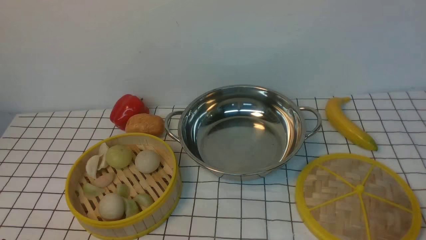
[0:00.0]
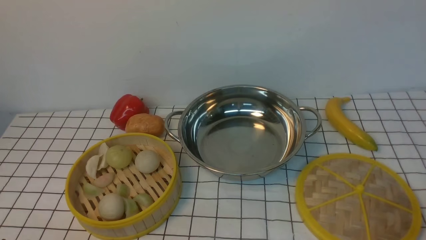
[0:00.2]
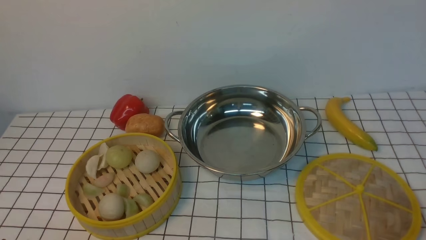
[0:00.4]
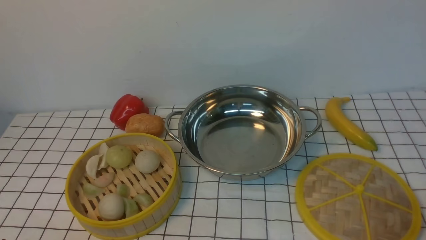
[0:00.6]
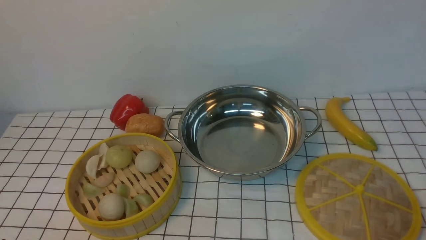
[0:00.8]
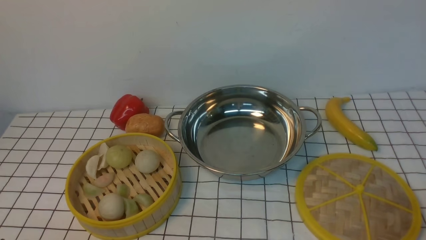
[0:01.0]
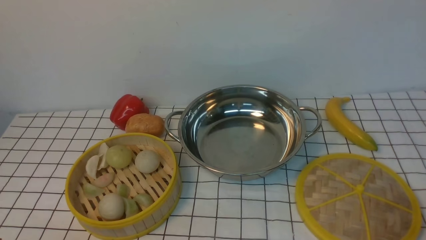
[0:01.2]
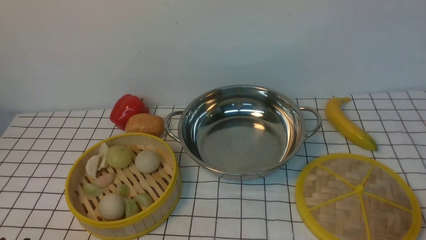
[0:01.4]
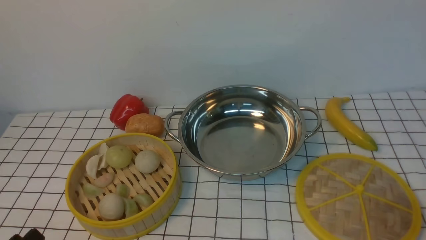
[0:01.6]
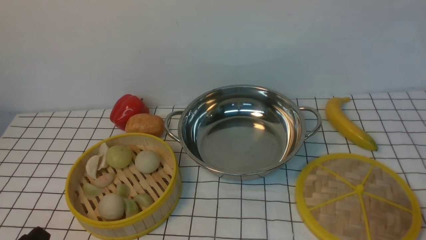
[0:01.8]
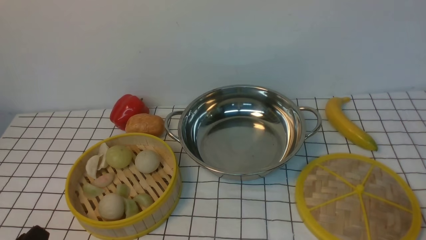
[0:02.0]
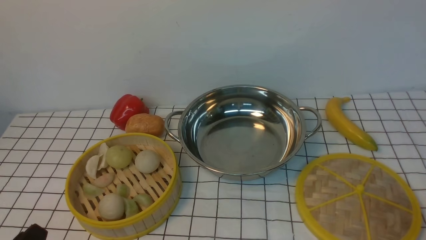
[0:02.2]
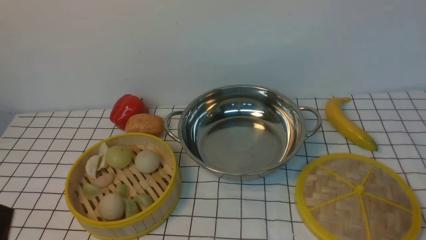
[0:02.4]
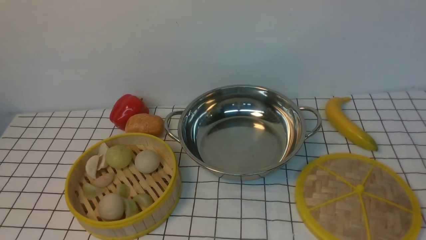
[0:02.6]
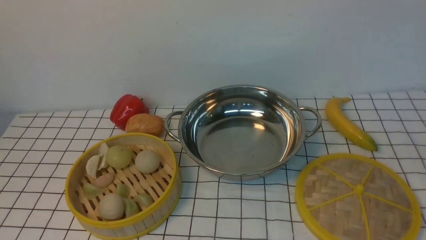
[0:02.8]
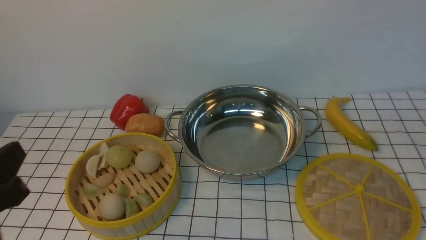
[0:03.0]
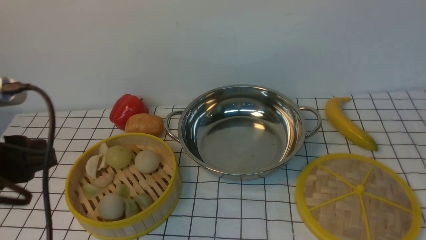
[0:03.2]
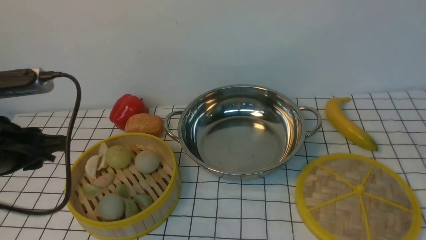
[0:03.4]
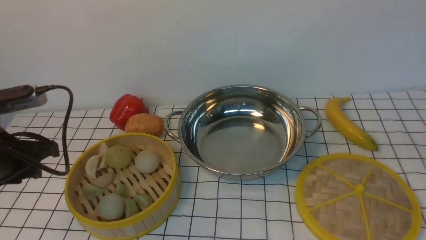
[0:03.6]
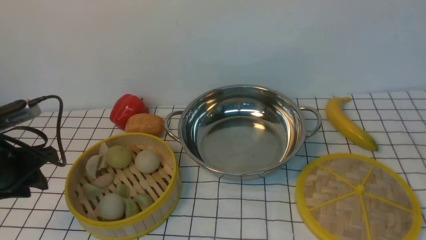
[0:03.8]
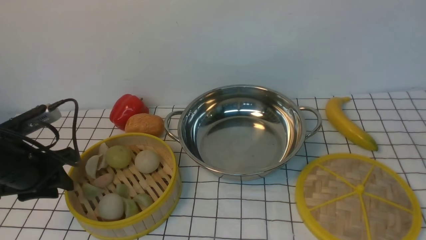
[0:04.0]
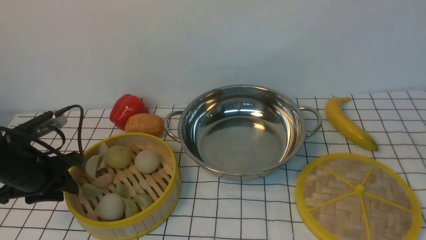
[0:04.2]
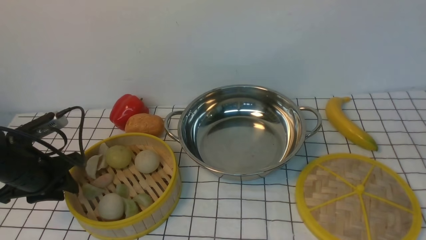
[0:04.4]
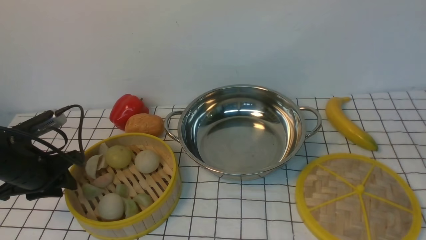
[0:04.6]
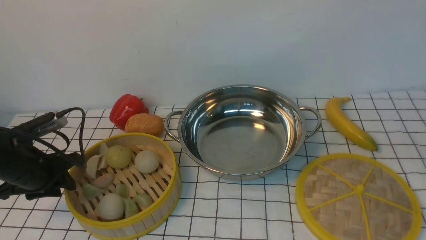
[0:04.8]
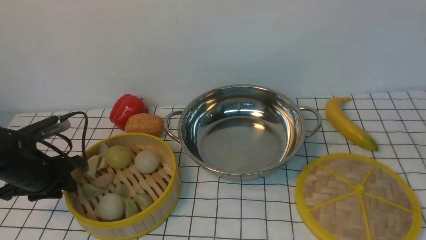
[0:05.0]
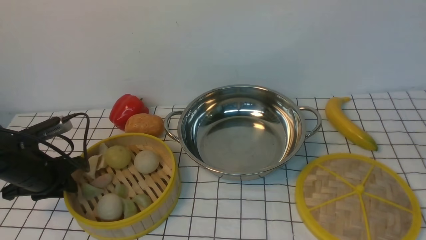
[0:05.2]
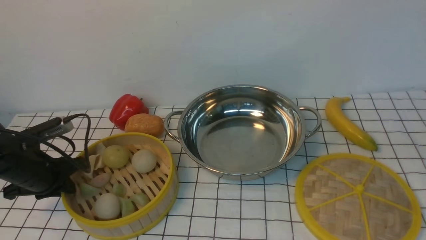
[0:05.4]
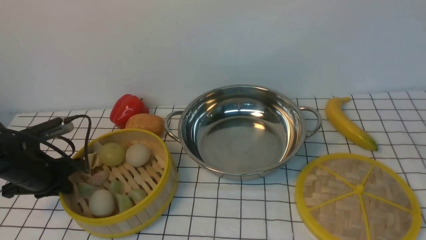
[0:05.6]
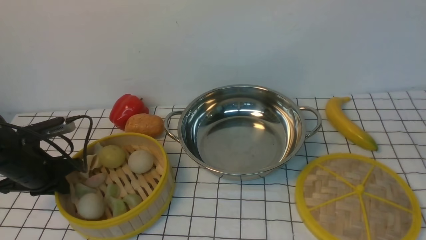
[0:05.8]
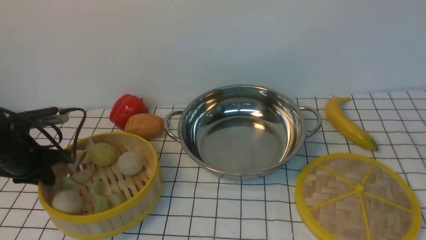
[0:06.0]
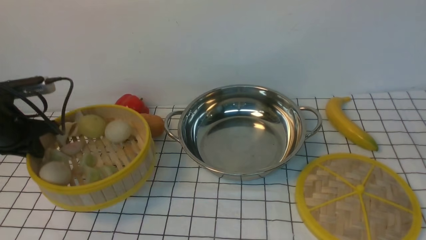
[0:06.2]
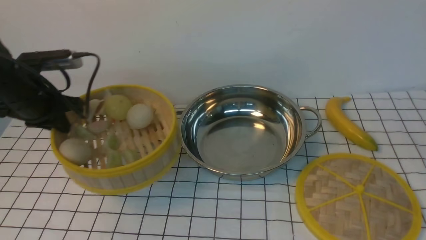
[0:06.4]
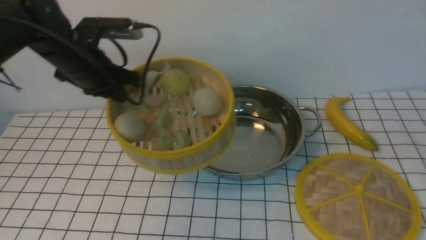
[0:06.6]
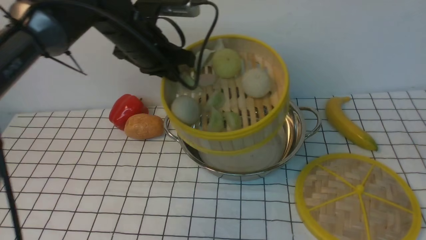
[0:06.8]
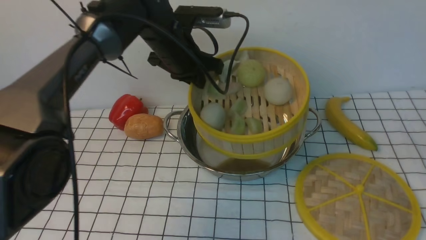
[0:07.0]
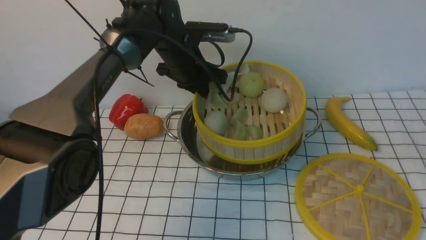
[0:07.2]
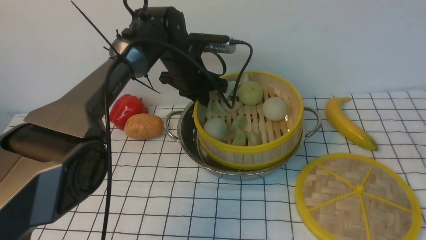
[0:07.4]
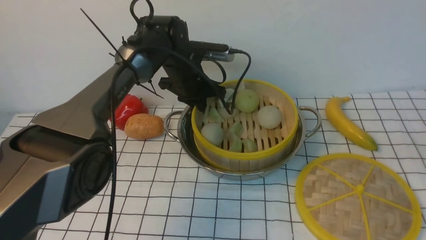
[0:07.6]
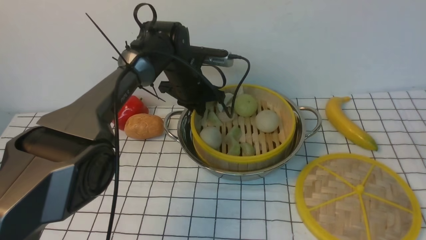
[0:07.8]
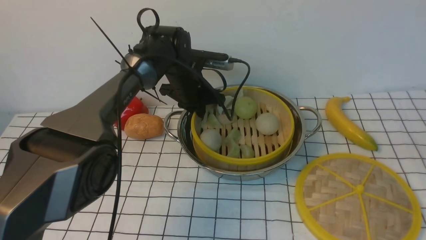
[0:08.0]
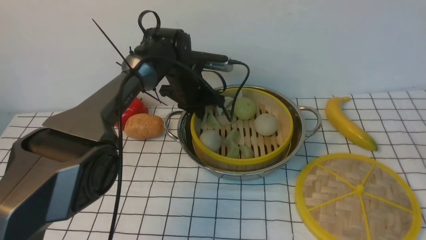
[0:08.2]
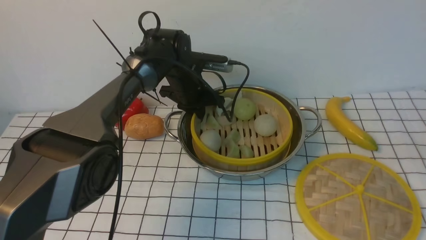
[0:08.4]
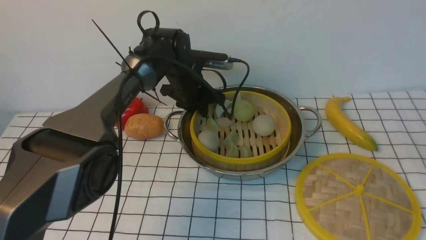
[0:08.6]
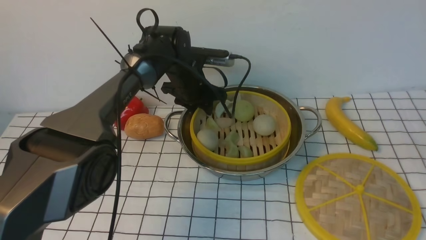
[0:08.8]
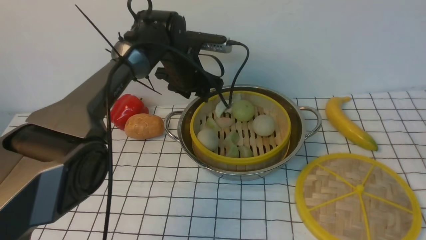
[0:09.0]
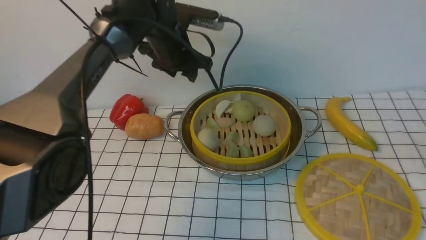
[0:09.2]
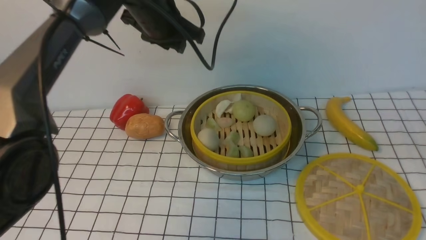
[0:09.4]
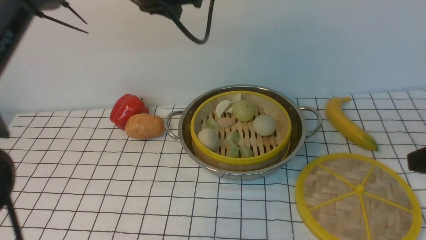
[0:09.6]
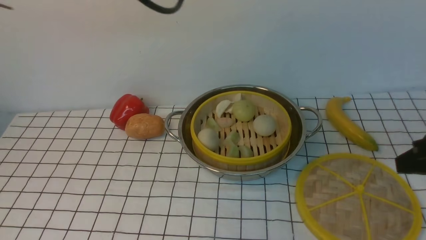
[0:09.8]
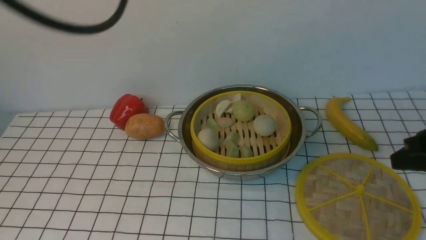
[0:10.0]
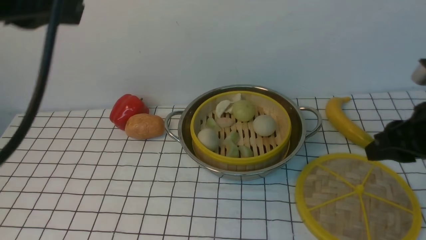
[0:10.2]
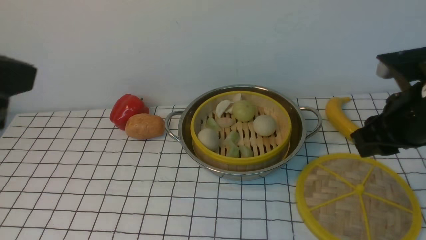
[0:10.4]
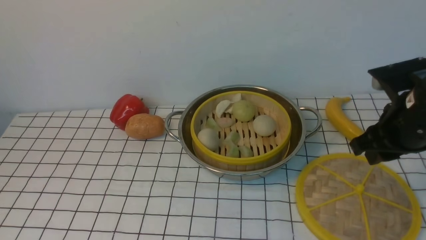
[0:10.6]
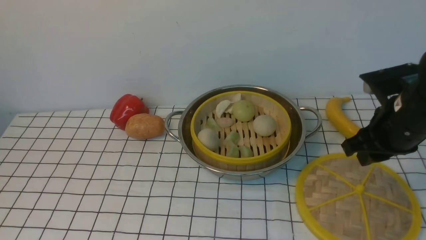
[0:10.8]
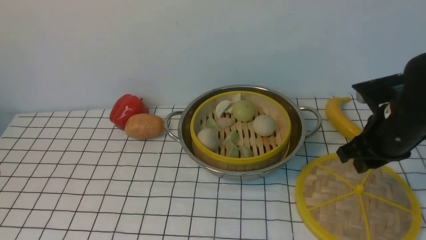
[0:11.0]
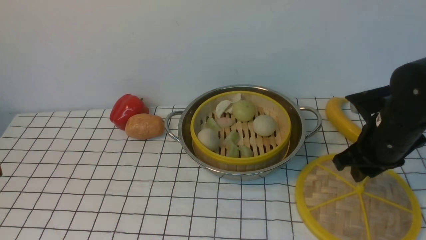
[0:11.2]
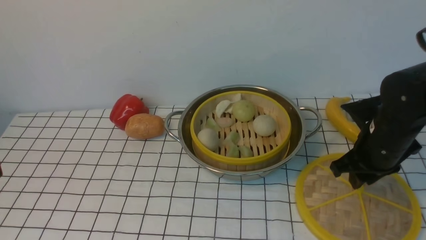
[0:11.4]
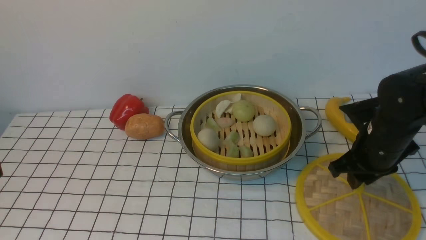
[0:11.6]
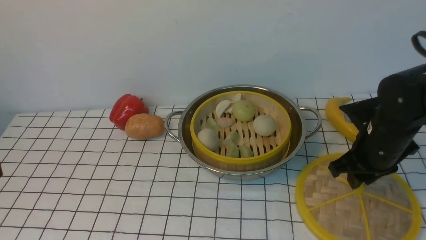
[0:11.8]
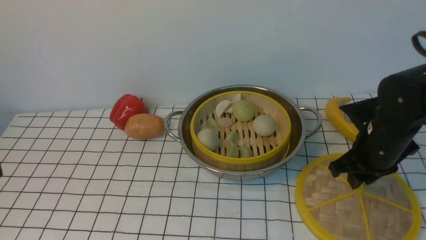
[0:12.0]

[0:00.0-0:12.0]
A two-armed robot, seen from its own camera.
Task of the whole recording: place the steamer in the pot on the white tablecloth, and put the lid on the steamer.
Step, 0:00.0 to 0:06.0: use the left arm to lift the steamer closest to it.
Step, 0:06.2 to 0:08.8: use the left arm to put the steamer into the iron steamer pot in the middle.
0:01.6 to 0:03.0: The left gripper shifts about 15 cm upward and forward.
0:03.0 to 0:04.4: The left gripper travels forward and downward by some 20 cm.
0:04.4 to 0:06.0: The left gripper shifts by roughly 5 cm, and closes its fingers.
0:06.0 to 0:07.6: The left gripper heads to the right and forward, covering approximately 30 cm.
0:07.6 to 0:09.0: The left gripper opens.
0:09.0 to 0:10.4: The right gripper goes approximately 20 cm forward and downward. The left gripper heads backward and upward, covering some 40 cm, and closes its fingers.
0:10.4 to 0:12.0: The left gripper heads downward and backward, covering about 10 cm. The right gripper goes about 10 cm downward.

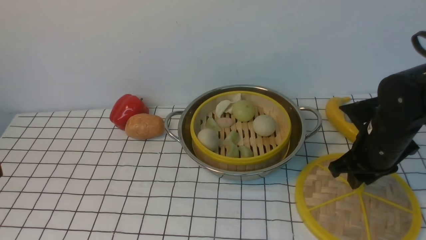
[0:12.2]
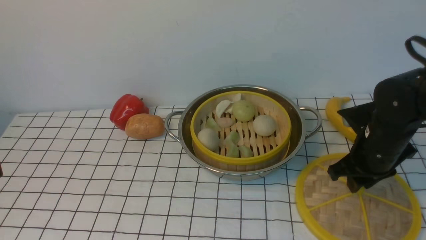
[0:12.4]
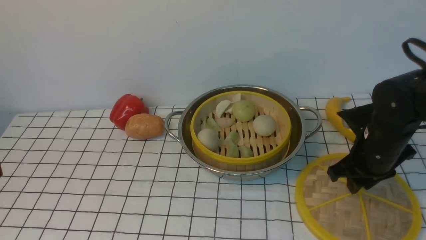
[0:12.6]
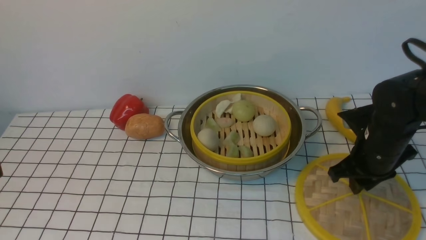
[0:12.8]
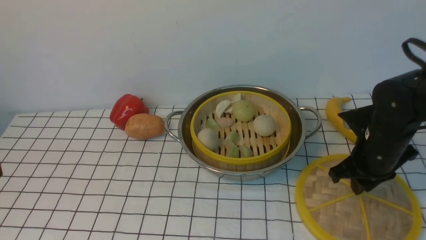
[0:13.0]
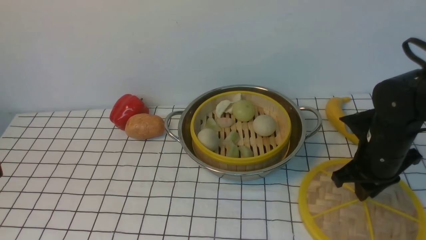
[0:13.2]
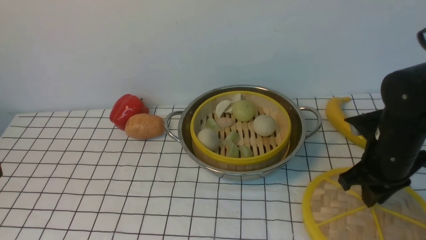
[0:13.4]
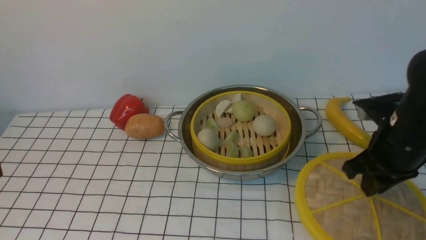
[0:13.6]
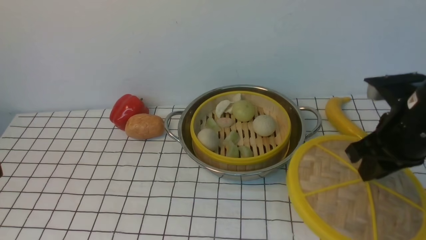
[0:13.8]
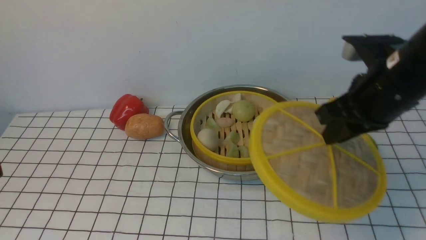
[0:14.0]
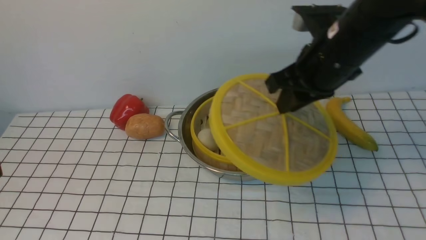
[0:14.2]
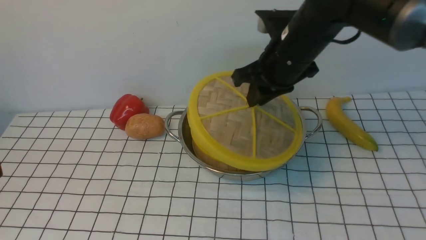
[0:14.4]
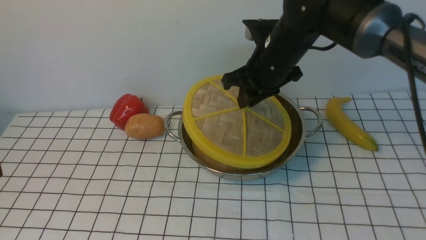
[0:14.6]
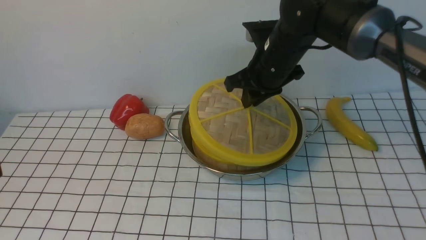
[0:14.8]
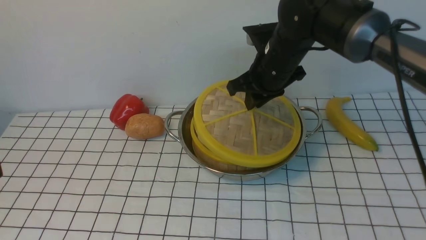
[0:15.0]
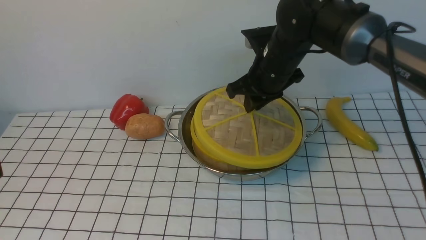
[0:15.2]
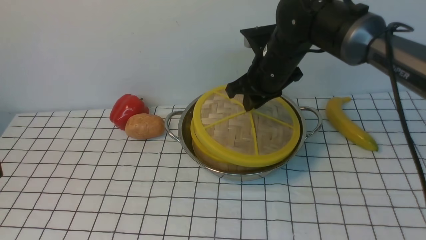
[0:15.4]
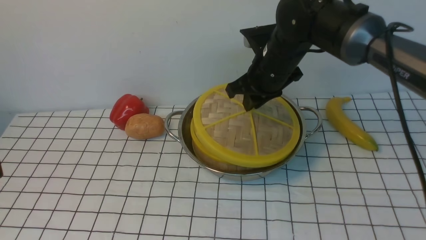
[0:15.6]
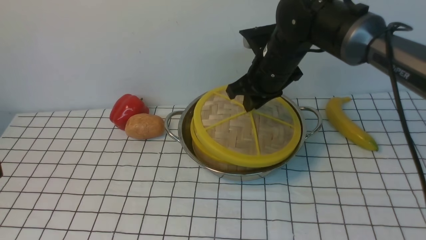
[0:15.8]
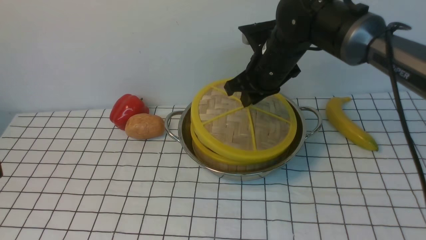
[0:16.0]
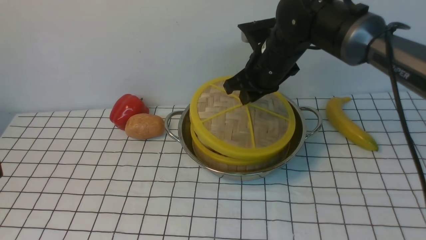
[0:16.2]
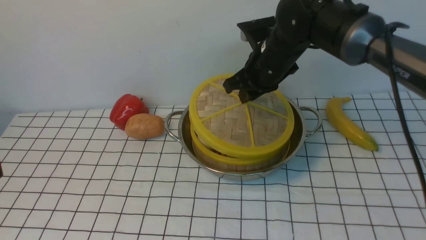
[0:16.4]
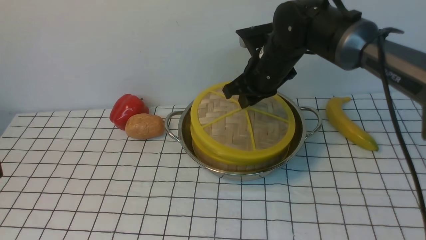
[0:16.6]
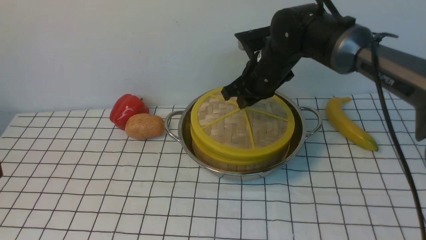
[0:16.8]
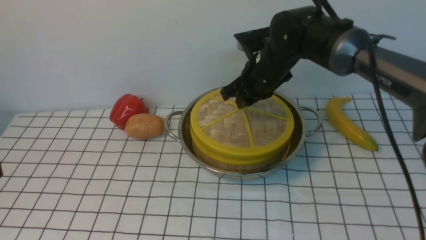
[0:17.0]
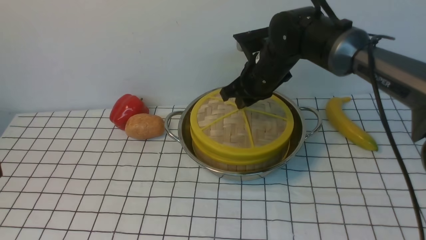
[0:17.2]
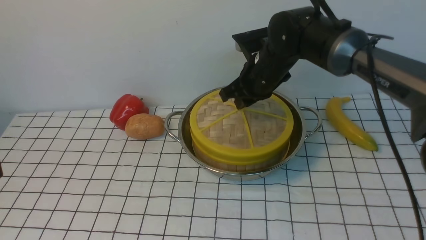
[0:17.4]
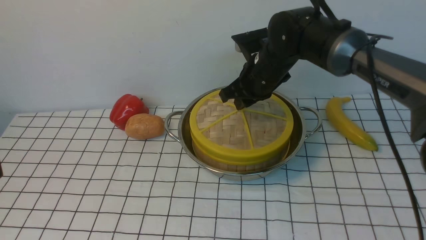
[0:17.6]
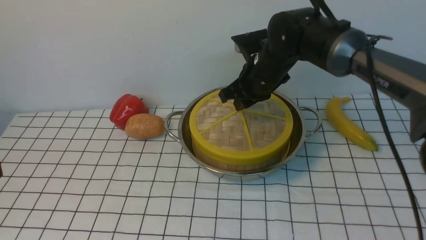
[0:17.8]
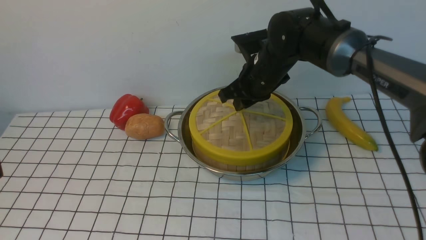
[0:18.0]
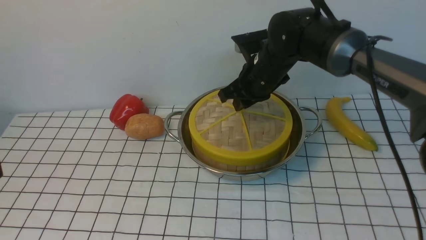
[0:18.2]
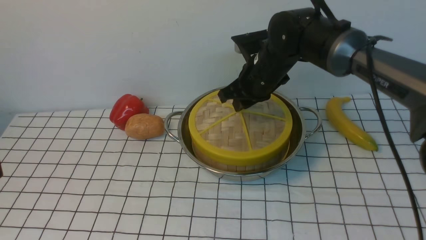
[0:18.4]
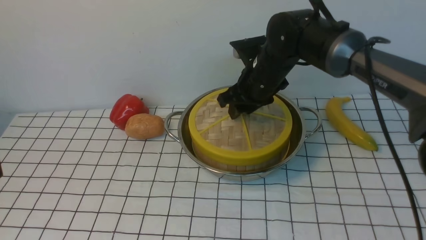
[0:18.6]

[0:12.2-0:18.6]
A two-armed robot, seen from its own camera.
Task of the whole recording: place the steamer in the pot on the white tablecloth, and put the lid on the steamer.
0:12.2 to 0:13.8: The right gripper is displaced upward by about 10 cm.
0:13.8 to 0:15.4: The right gripper is displaced forward and to the left by about 20 cm.
0:15.4 to 0:17.0: The grippers move only a little.
0:17.0 to 0:18.6: The right gripper opens its fingers.
